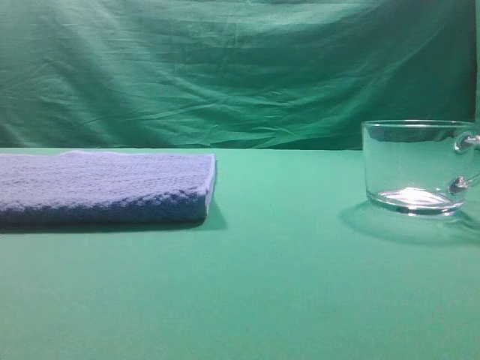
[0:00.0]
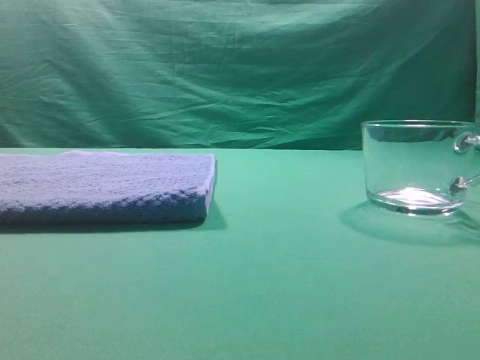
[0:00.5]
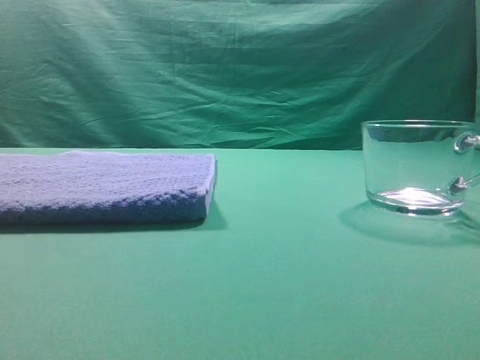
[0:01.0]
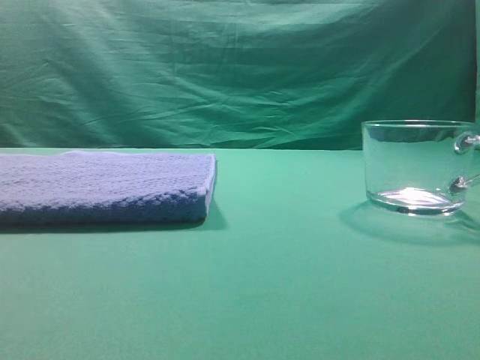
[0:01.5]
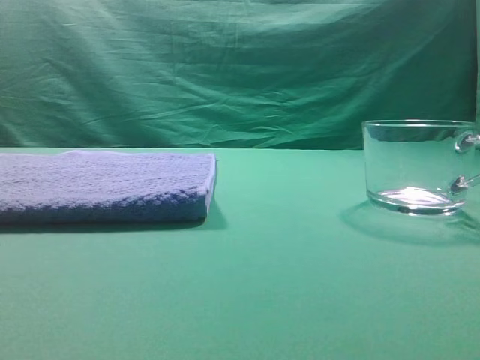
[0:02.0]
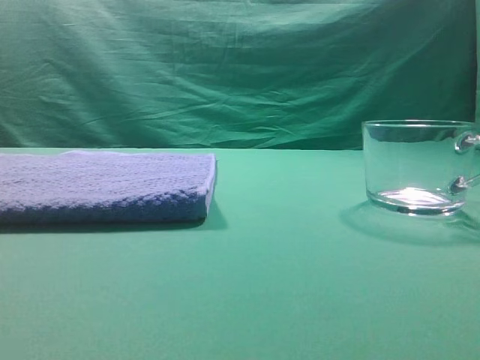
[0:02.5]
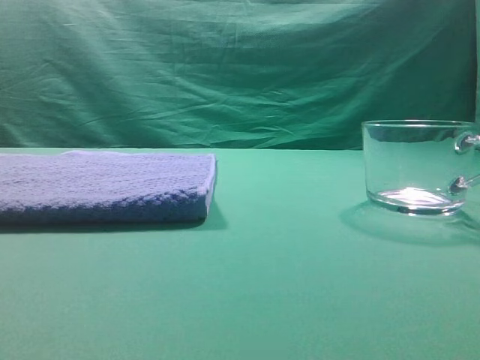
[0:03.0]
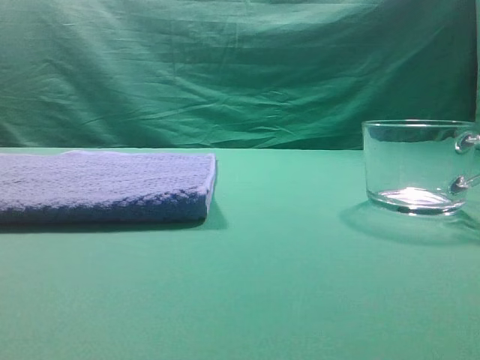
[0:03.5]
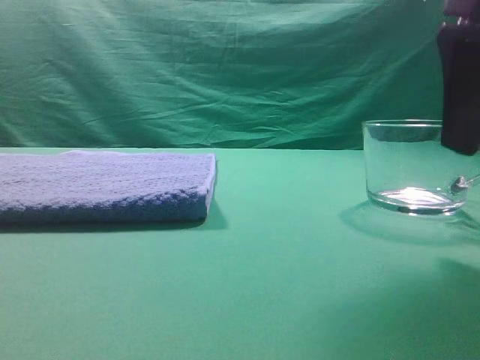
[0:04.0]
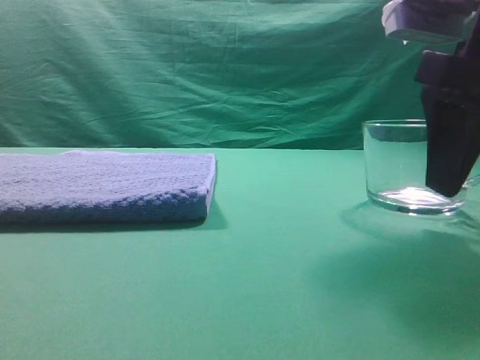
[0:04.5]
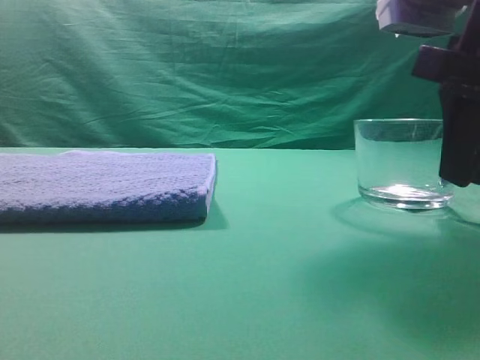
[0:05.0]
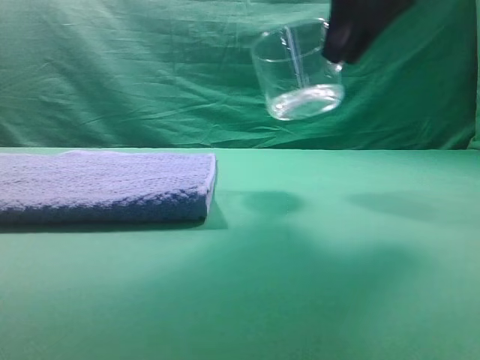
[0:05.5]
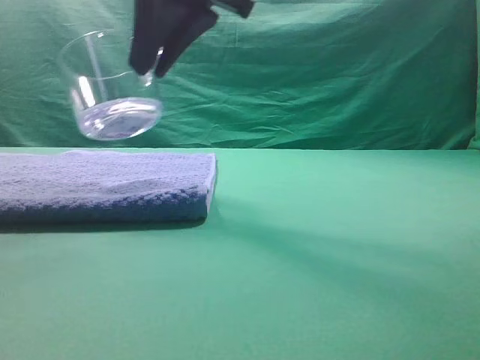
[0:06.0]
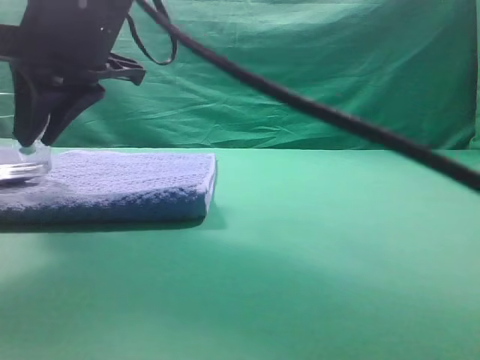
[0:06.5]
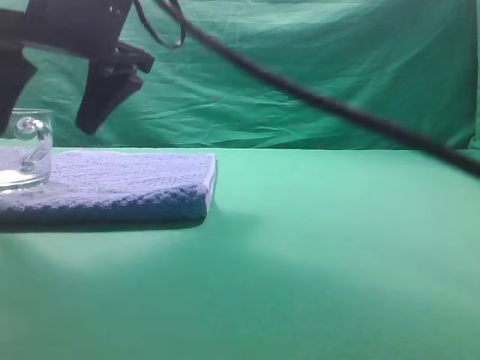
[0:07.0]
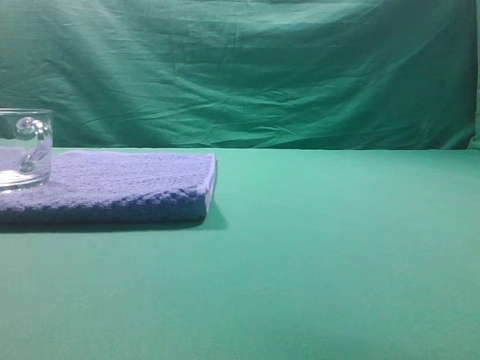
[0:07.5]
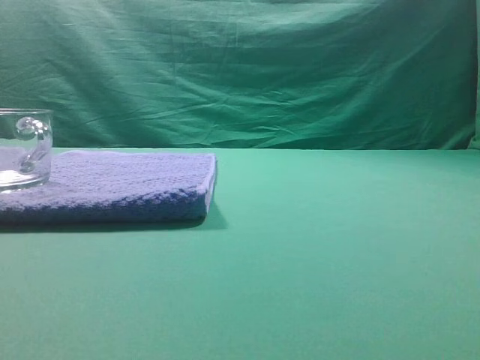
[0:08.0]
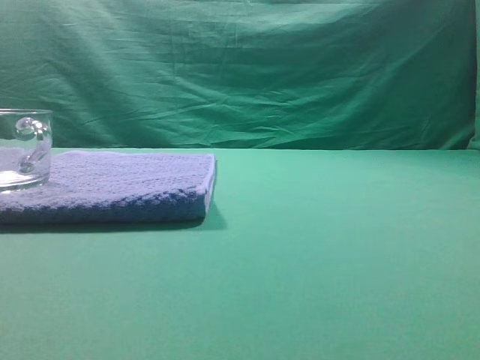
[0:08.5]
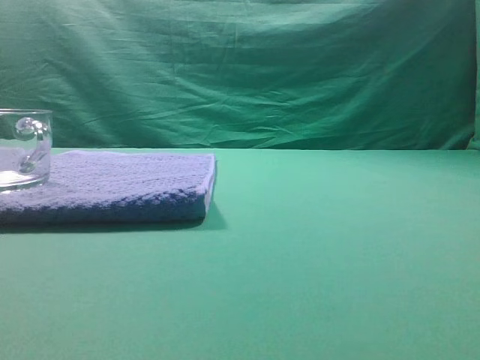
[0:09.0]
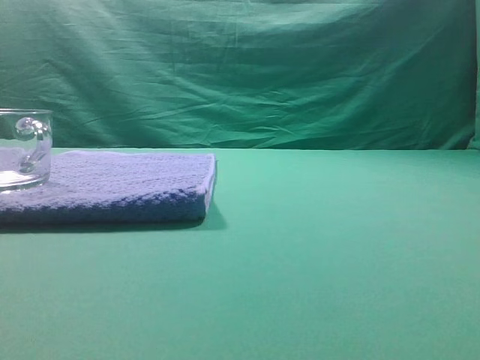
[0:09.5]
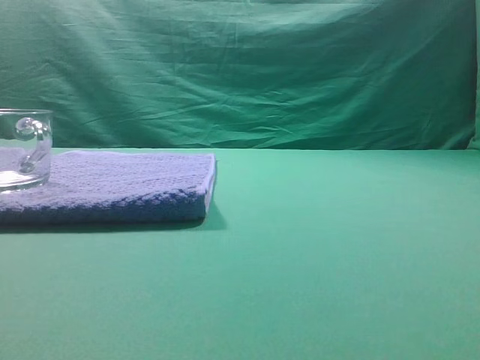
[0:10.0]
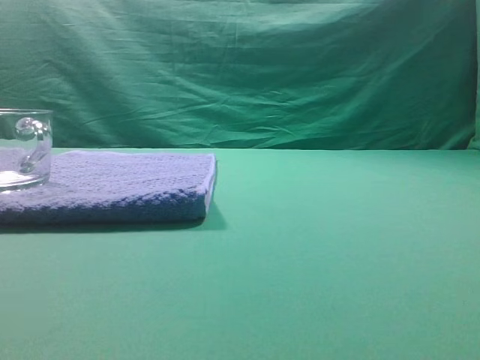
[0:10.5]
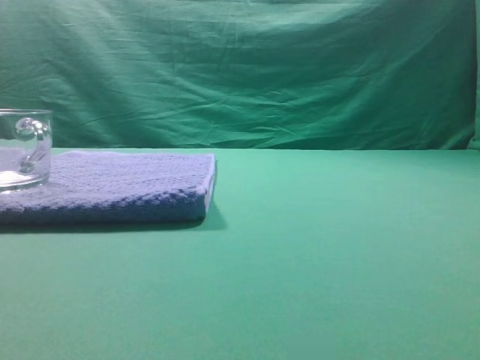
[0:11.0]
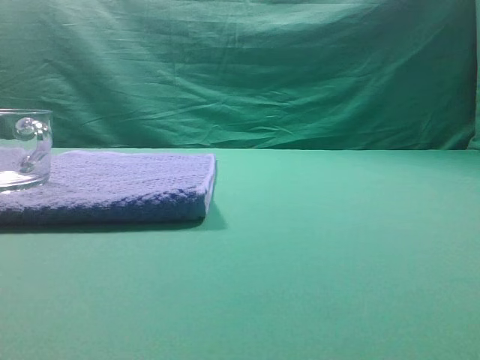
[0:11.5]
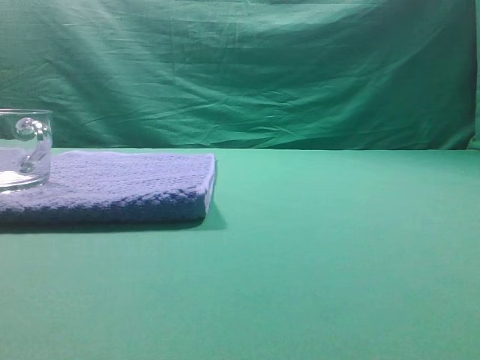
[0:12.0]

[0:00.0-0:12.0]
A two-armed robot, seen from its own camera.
Task of the whole recording: grasp the transparent glass cup and place it within the blue towel.
Step, 0:00.0 to 0:05.0: Grasp the transparent glass cup.
Step, 0:05.5 to 0:07.0: Place the glass cup on the blue zone.

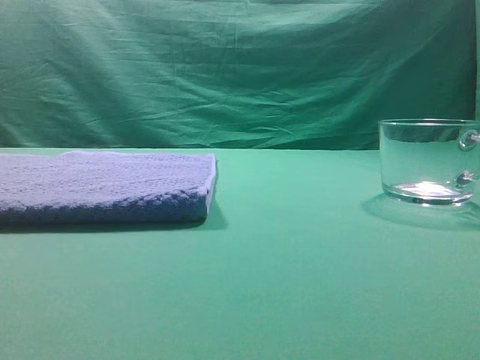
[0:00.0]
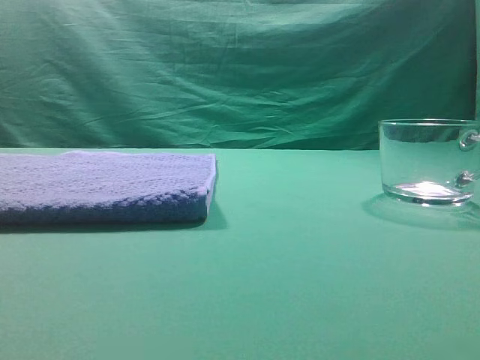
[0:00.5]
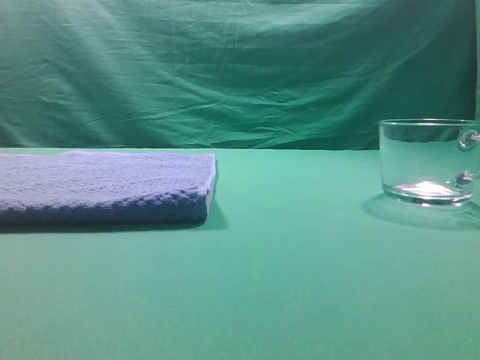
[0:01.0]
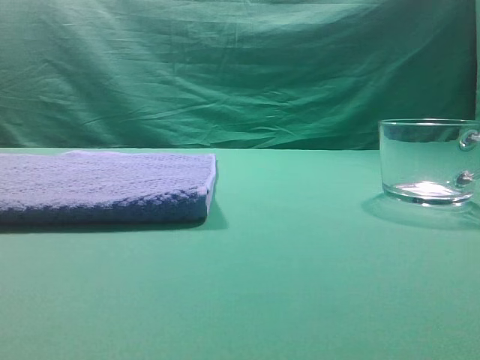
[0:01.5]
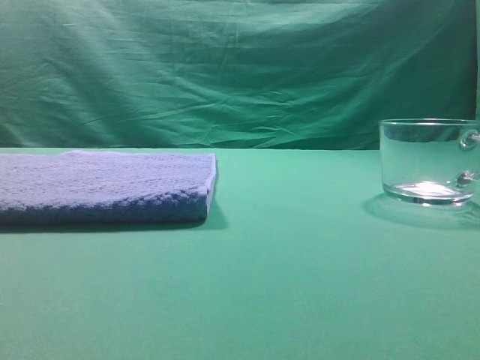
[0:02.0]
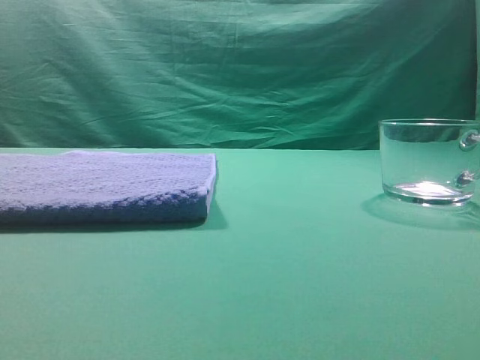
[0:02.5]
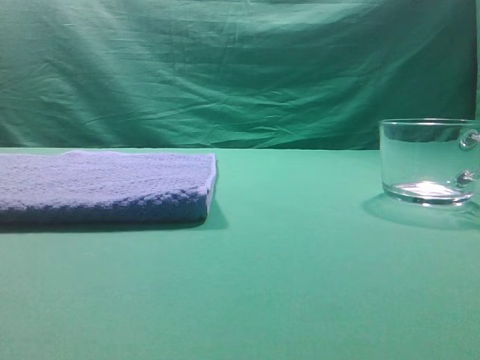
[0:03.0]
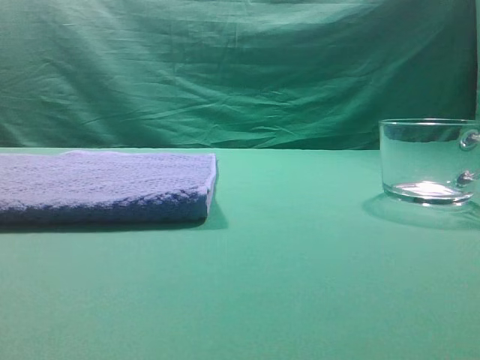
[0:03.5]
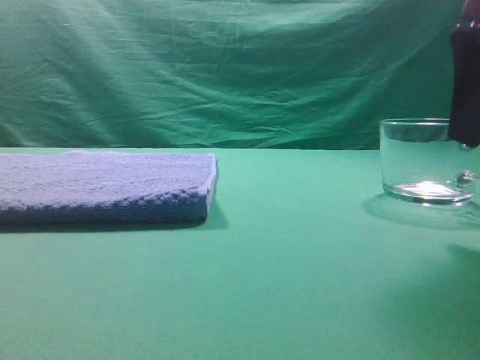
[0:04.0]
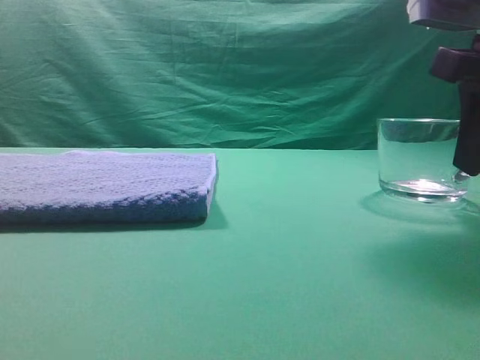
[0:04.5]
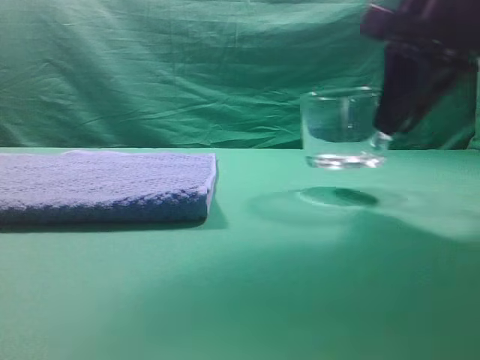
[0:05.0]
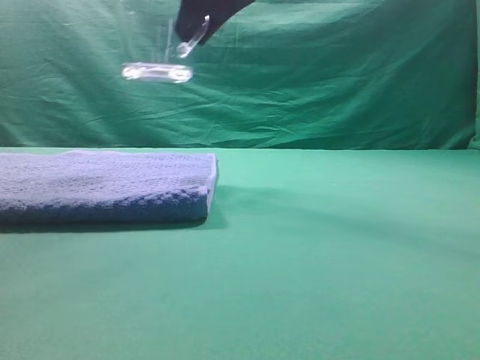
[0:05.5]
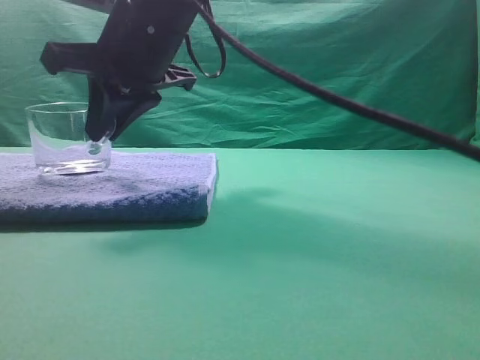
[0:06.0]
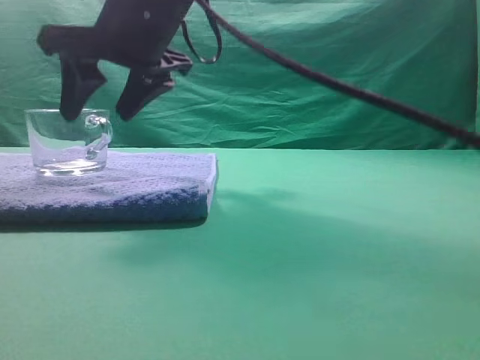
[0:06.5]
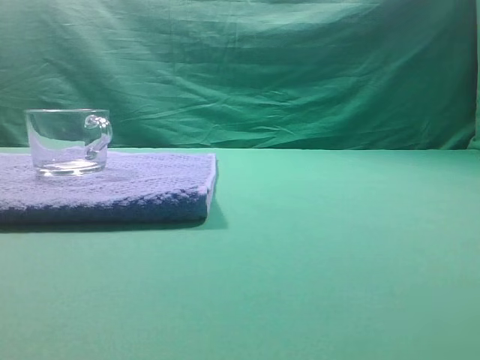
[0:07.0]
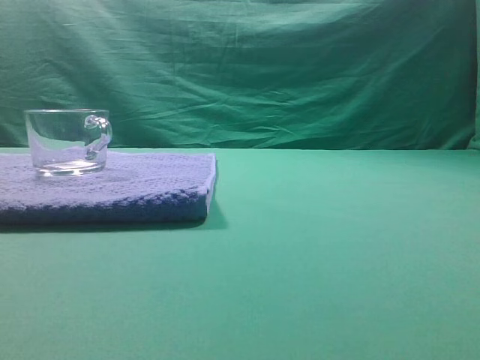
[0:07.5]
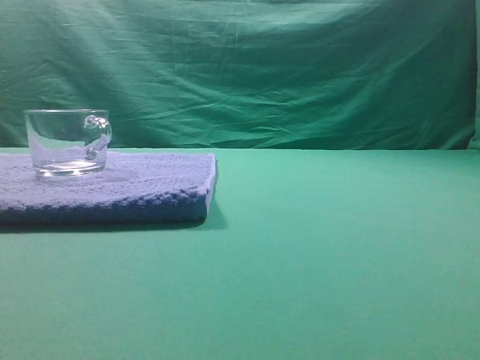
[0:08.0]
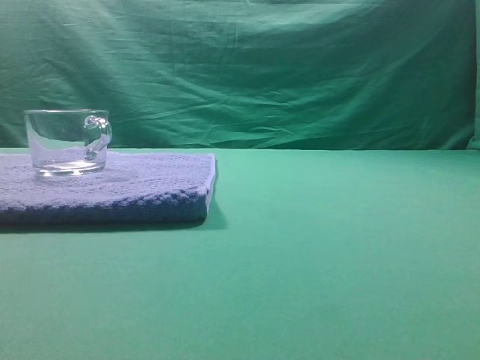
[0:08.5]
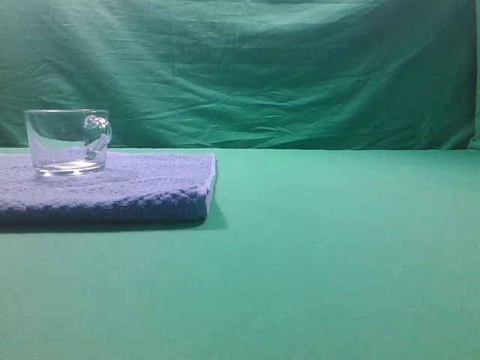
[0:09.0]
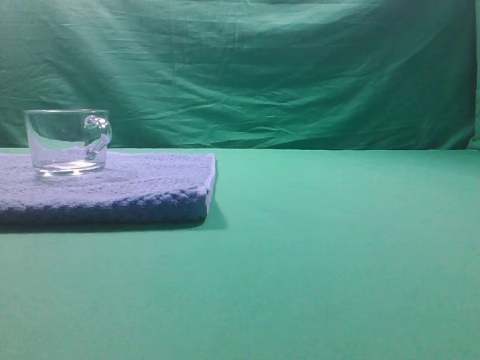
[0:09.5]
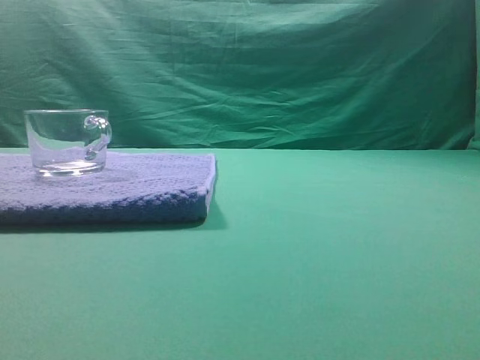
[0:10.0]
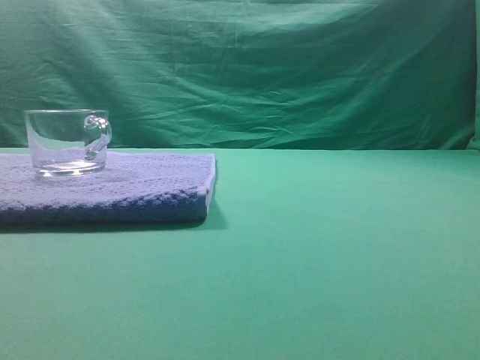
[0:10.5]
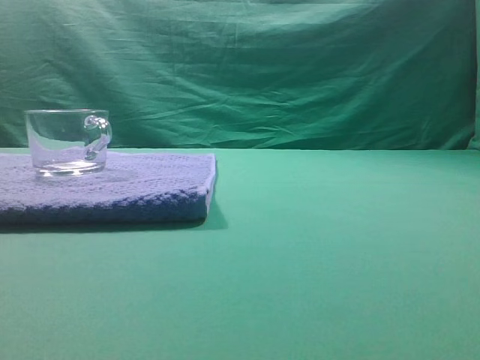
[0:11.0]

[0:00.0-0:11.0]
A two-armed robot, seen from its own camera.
Task of the whole recording: grasp the transparent glass cup and place it within the blue towel.
Step, 0:00.0 to 0:04.5: Grasp the transparent glass cup.
Step, 0:05.5 to 0:06.5: Place the glass cup on the blue zone.

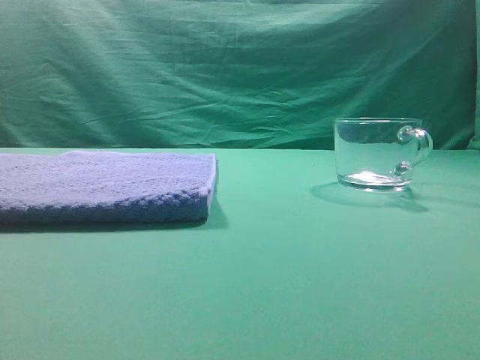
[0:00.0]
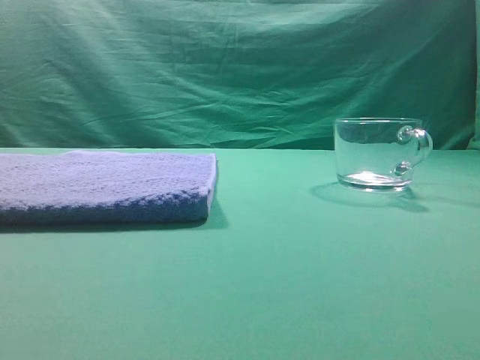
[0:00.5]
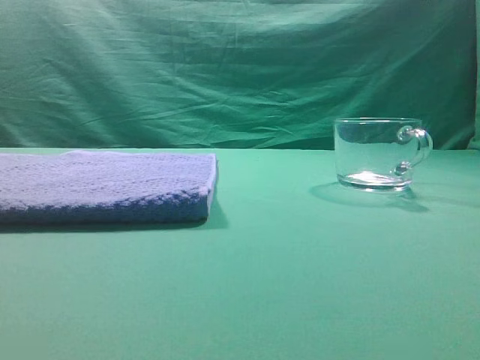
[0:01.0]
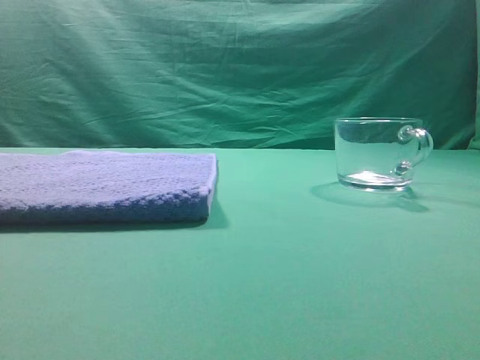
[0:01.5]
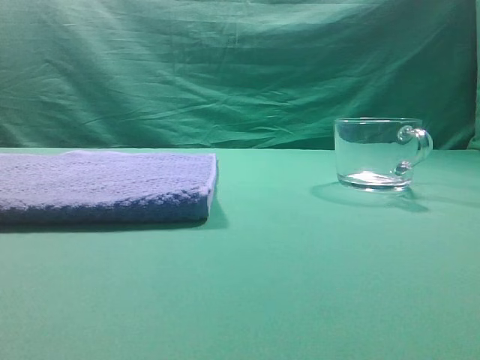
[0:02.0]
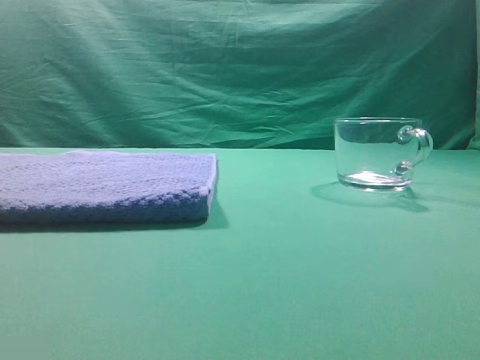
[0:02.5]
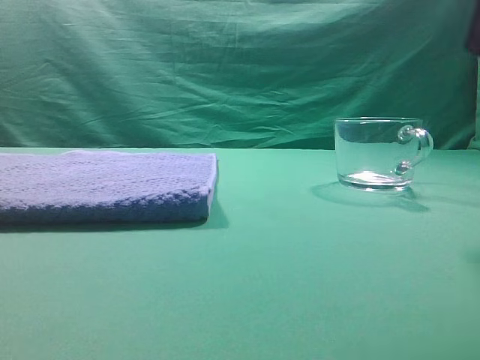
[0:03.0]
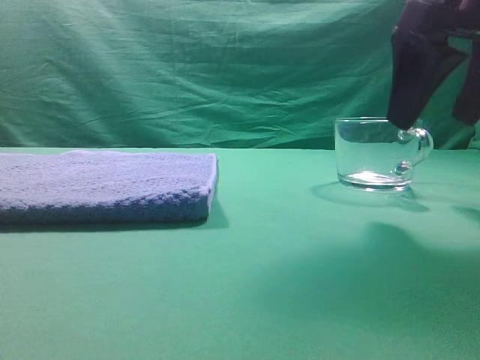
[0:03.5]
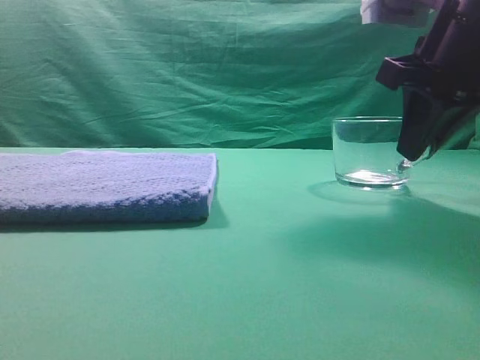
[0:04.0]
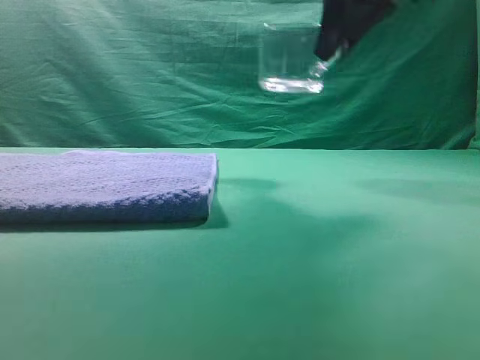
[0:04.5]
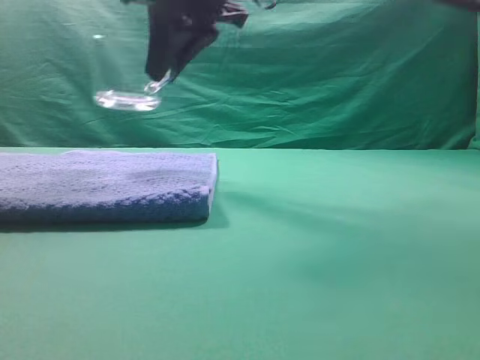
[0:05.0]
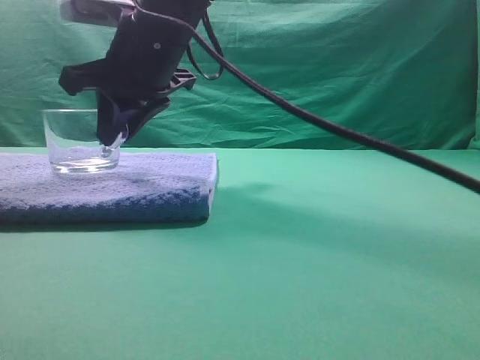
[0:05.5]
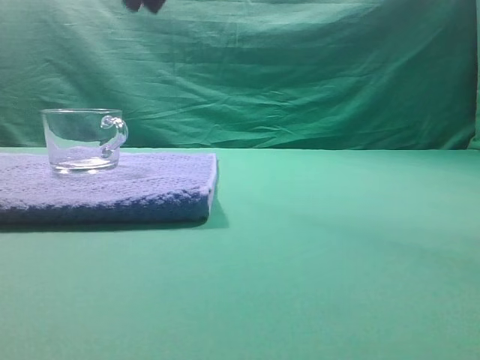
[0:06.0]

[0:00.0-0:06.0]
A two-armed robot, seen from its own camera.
Task of the whole recording: grasp the transparent glass cup and place it within the blue towel.
Step, 0:00.0 to 0:04.0: Grasp the transparent glass cup.
Step, 0:04.5 to 0:05.5: Place the glass cup on the blue zone.
